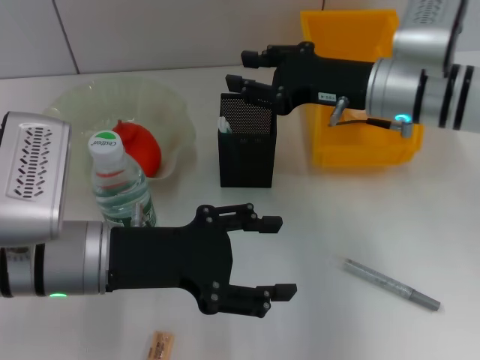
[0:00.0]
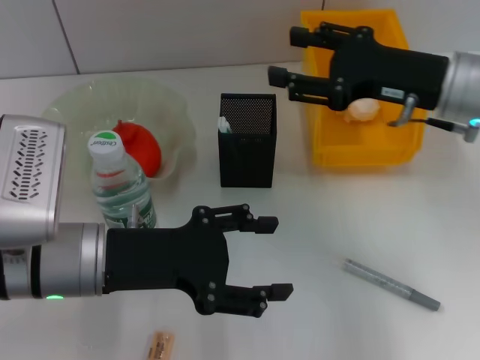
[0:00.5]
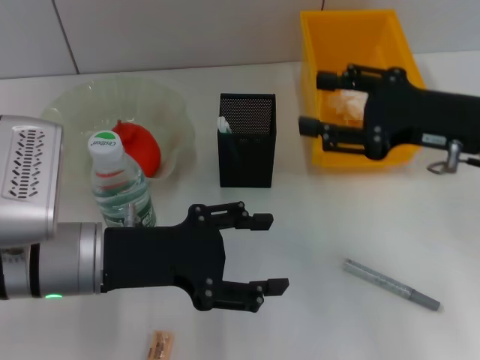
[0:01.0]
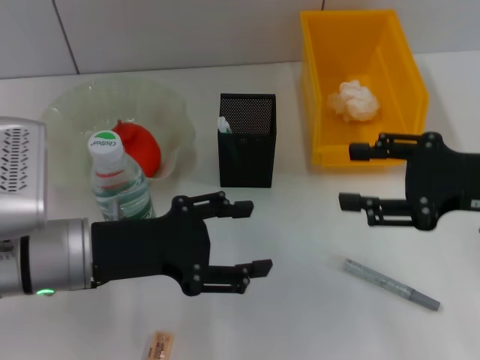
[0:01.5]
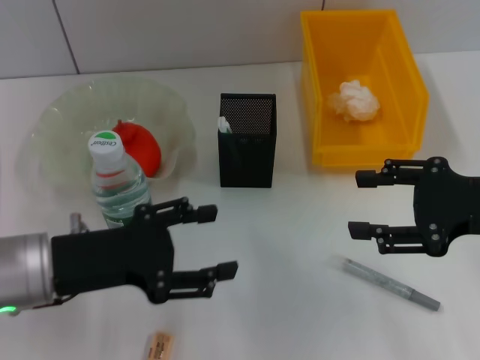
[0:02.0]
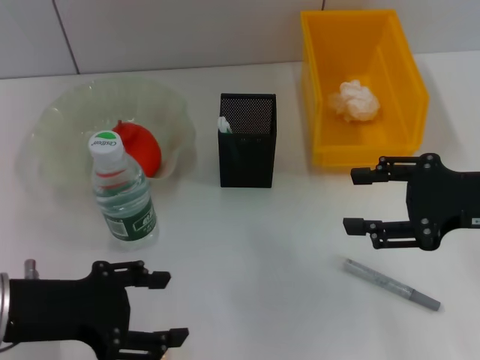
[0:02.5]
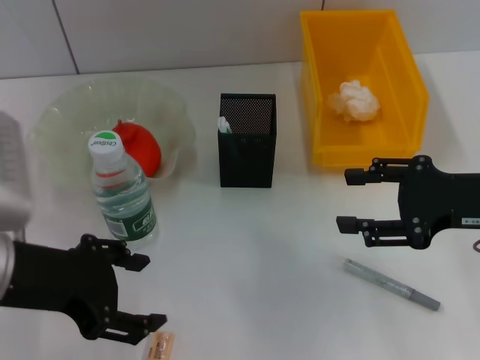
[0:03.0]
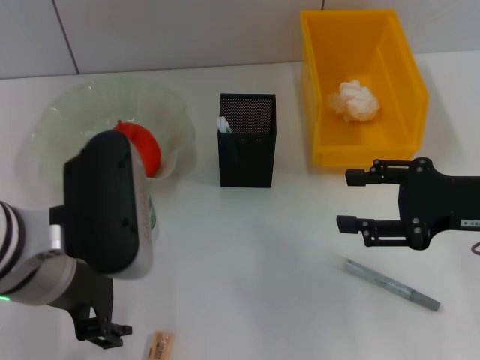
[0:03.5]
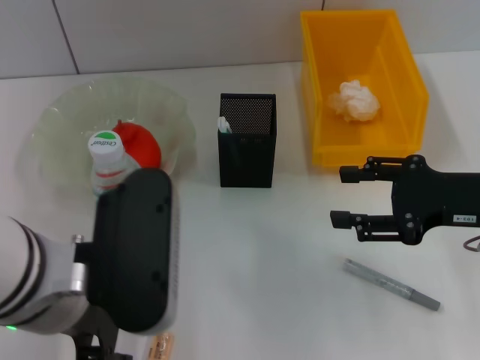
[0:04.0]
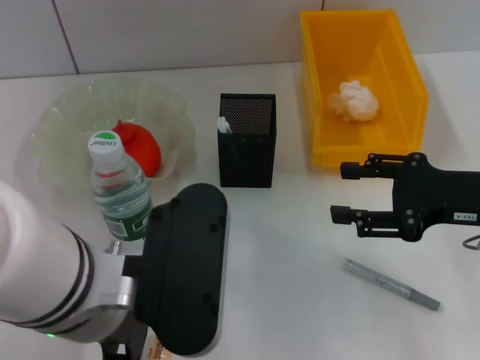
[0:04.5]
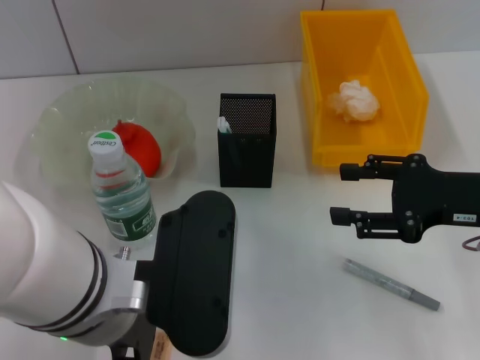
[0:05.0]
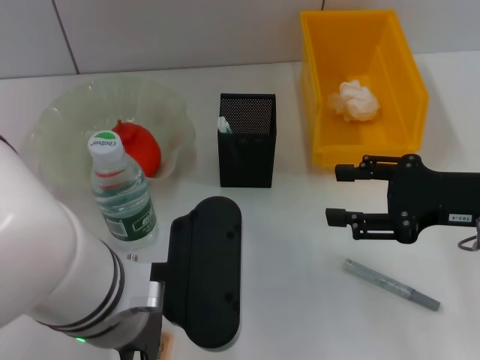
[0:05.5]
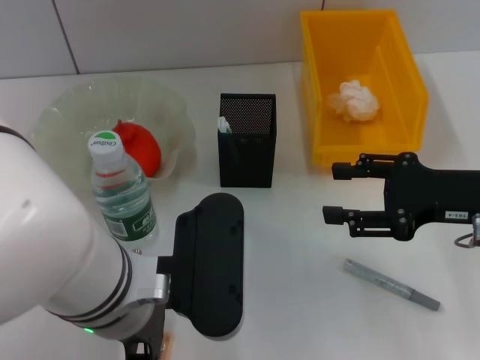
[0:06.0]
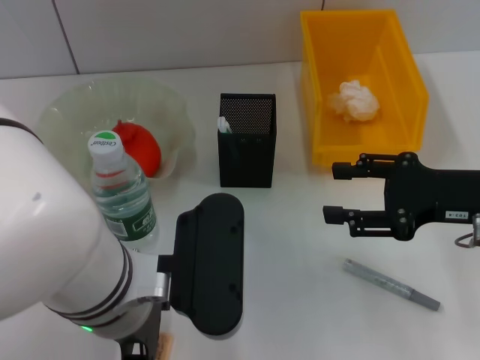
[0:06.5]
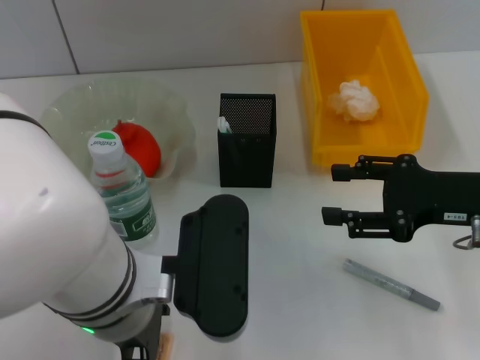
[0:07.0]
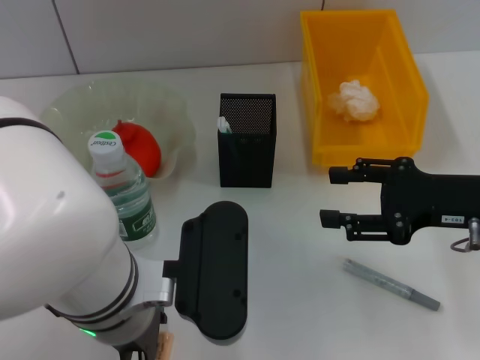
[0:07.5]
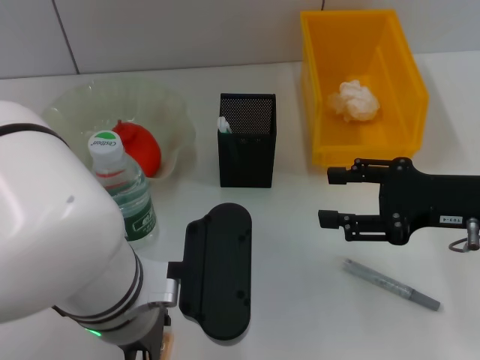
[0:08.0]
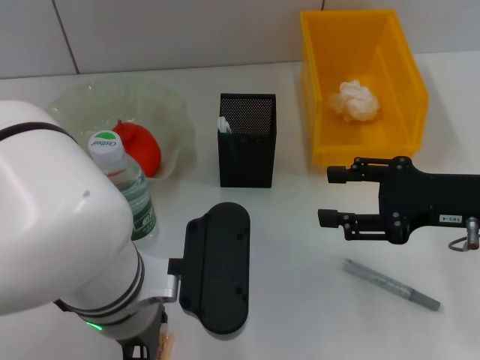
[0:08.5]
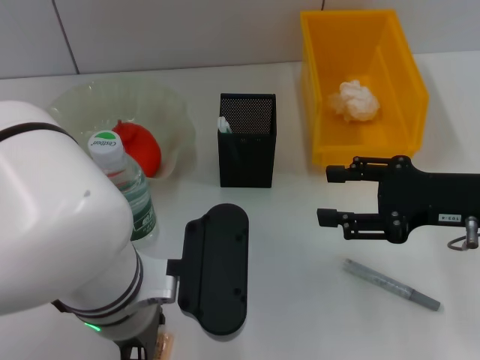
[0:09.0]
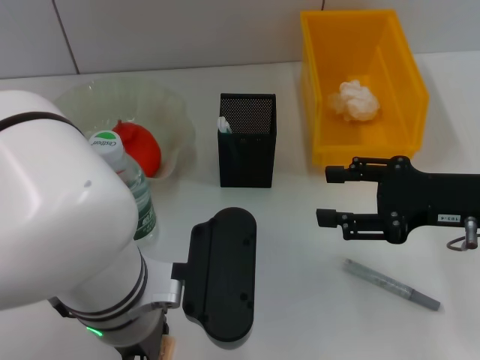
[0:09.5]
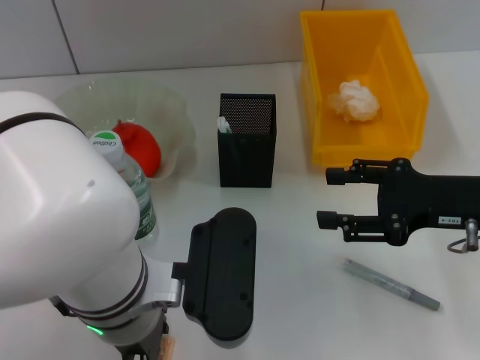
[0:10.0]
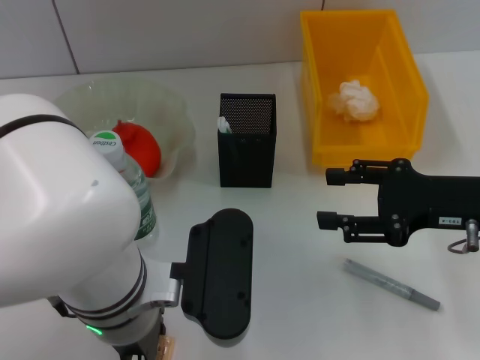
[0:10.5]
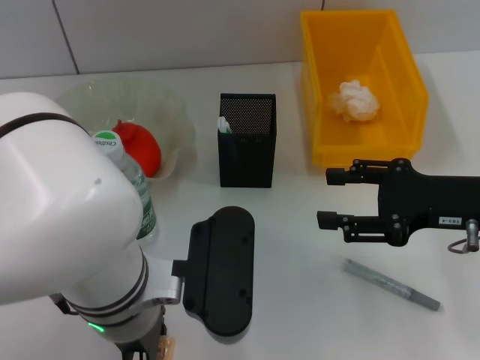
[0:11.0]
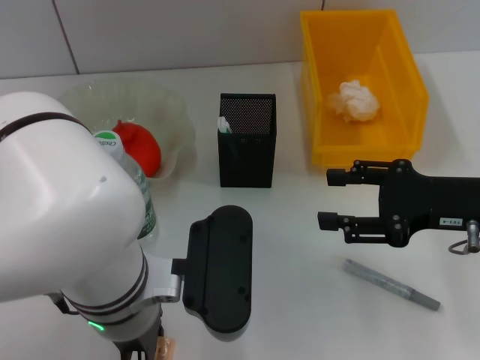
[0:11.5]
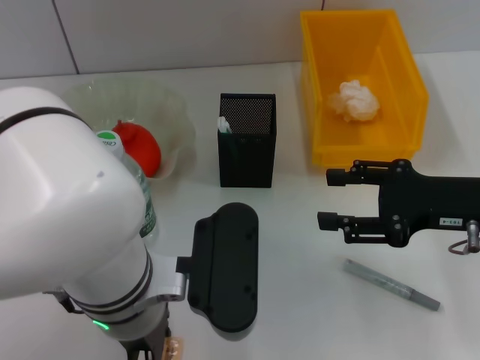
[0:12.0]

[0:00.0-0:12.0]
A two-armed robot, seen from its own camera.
Step, 0:00.0 to 0:09.5: Grab the eraser with the left hand.
0:00.0 to 0:02.0: The right gripper heads backward and to the right, covering about 15 cm, and opens.
0:02.0 to 0:04.0: The left gripper goes approximately 10 cm upward and to the right.
0:04.0 to 0:06.0: The left gripper shifts by approximately 5 cm.
0:06.0 to 0:08.0: The two grippers keep their place.
0:08.0 to 0:10.0: Both grippers stay about where they are.
0:10.0 to 0:12.0: The left gripper closes.

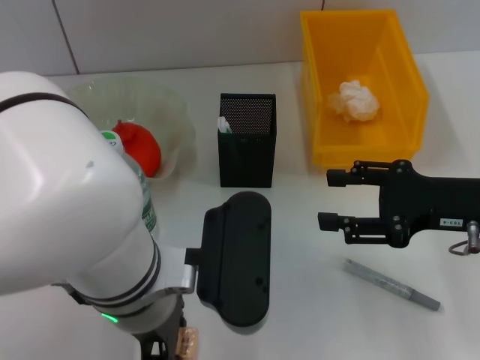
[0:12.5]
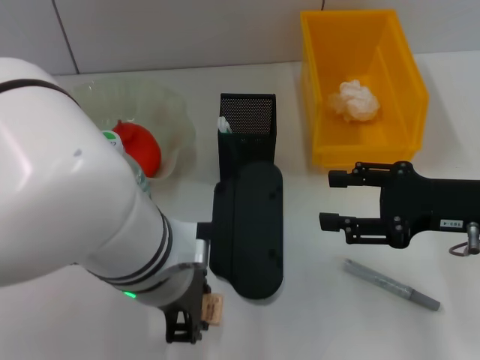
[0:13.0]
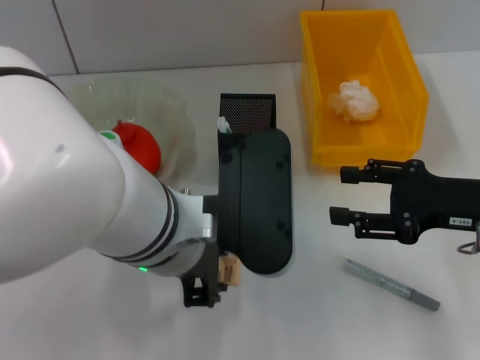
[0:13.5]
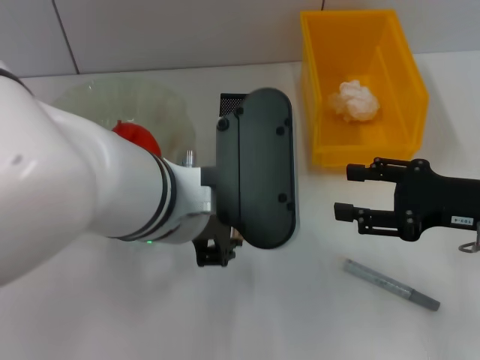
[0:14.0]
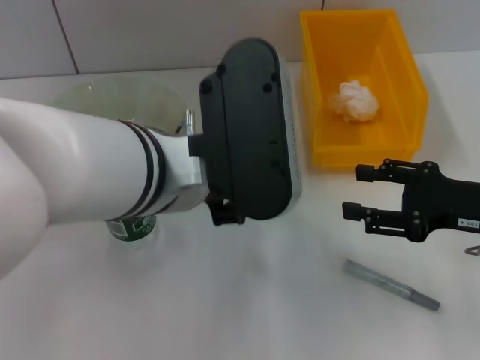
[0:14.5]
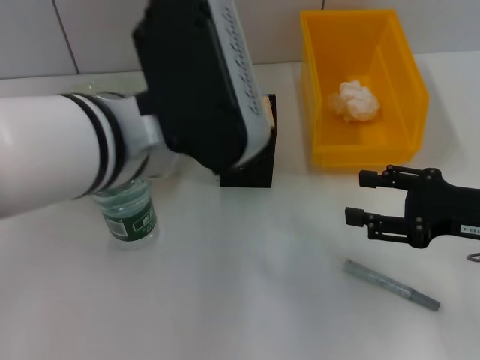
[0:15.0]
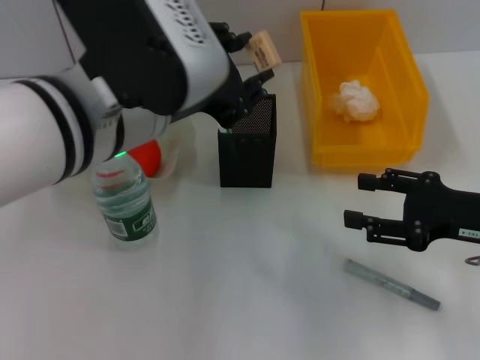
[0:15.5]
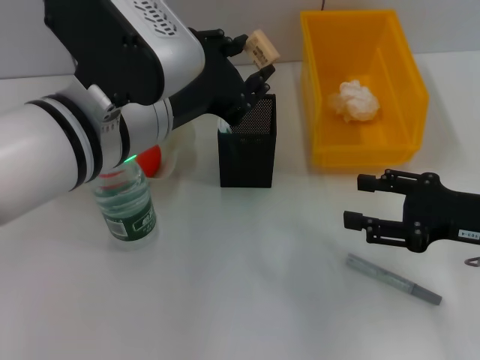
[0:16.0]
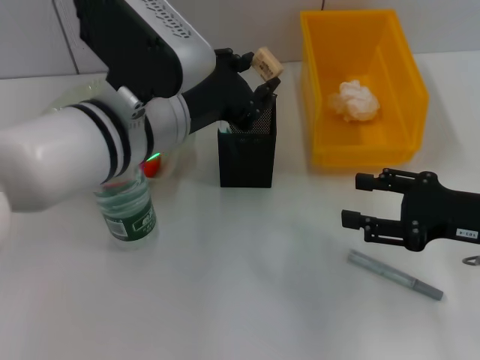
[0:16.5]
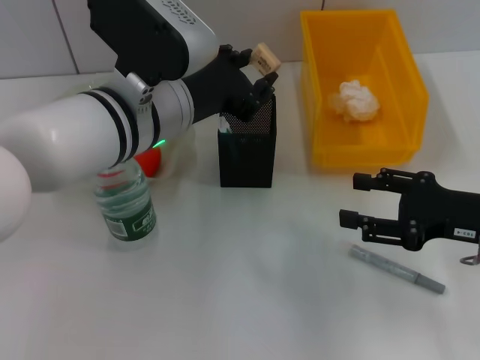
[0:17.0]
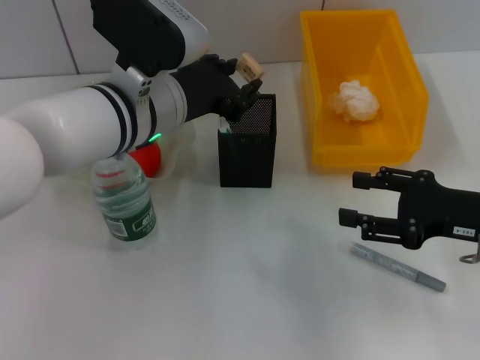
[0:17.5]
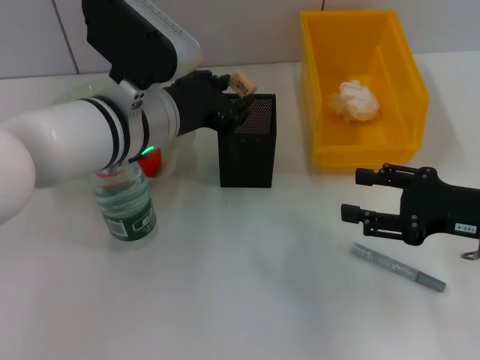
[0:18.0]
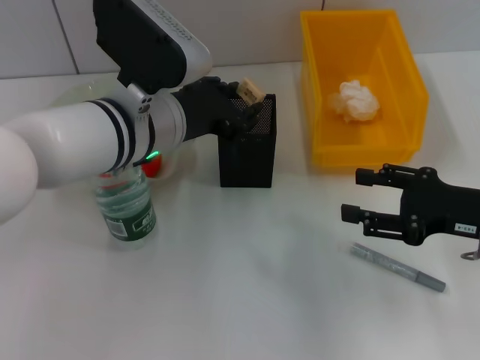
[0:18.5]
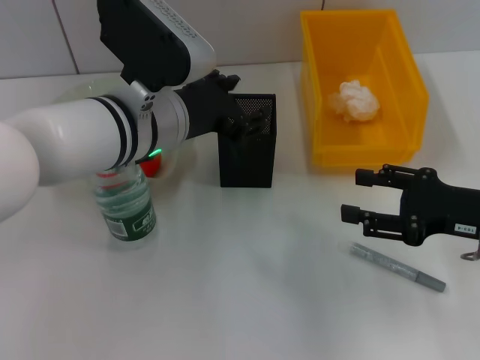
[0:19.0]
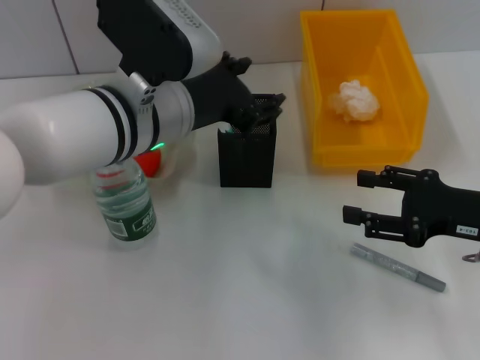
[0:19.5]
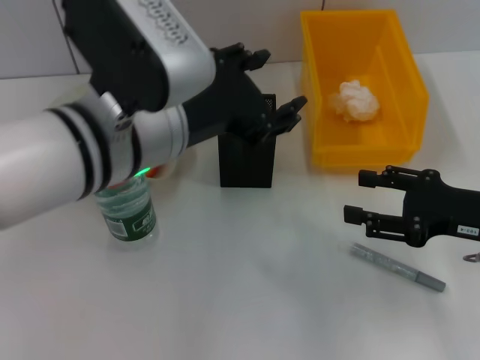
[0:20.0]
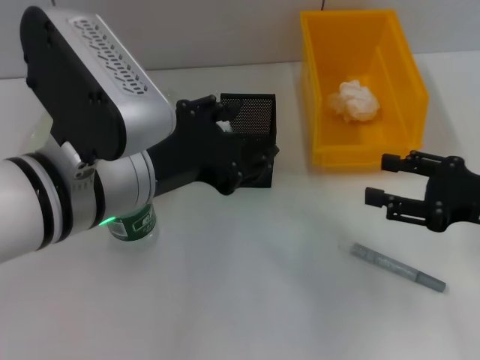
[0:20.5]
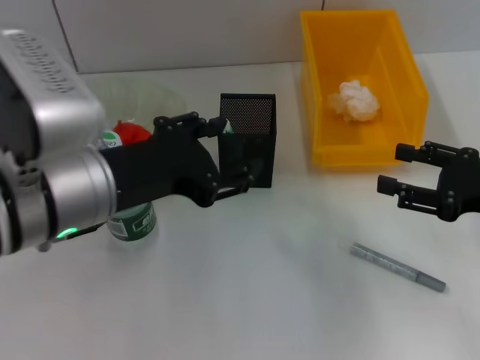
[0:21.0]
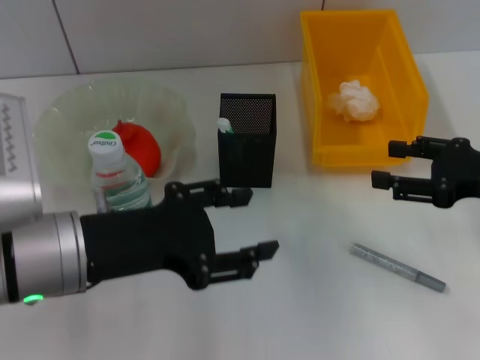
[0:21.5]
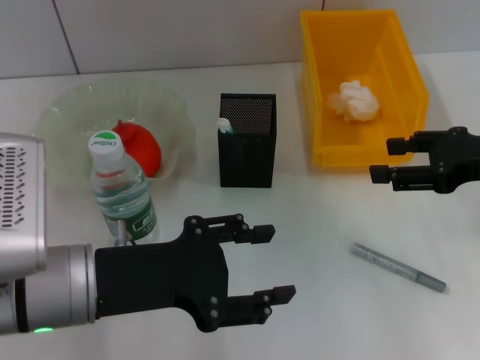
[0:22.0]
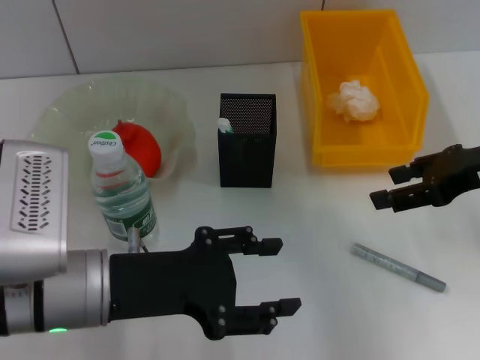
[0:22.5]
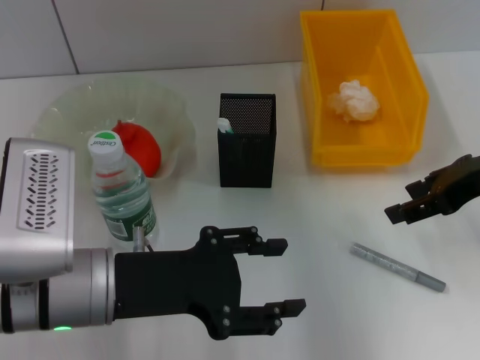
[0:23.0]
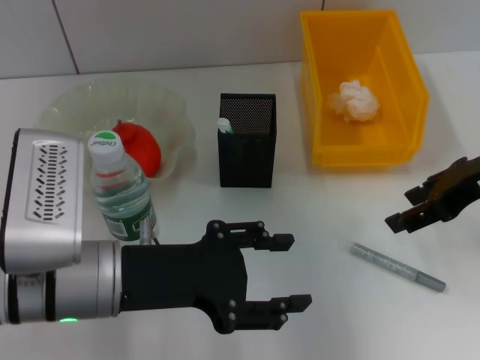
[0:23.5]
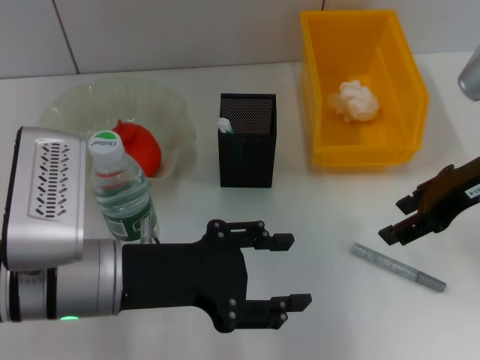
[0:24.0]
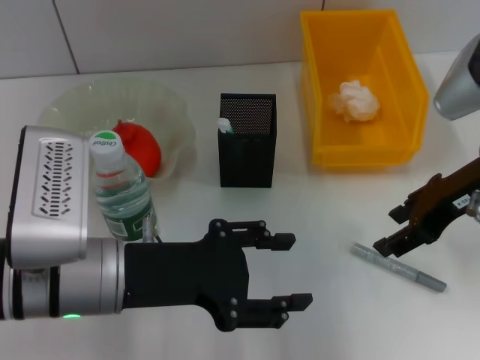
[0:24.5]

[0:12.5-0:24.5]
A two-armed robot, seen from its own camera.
Step, 0:12.5 to 0:18.5: Place the eraser into the pen holder with the left hand.
0:12.5 to 0:14.5: The left gripper moves upward, some 5 cm.
0:14.5 to 0:16.5: The left gripper is displaced forward by approximately 5 cm.
0:16.5 to 0:18.5: The grippers make only small movements.
0:18.5 to 0:20.5: The left gripper shifts some 10 cm backward, and opens its fingers.
0:20.5 to 0:22.5: The left gripper goes some 5 cm downward. Meanwhile the right gripper goes about 10 cm upward.

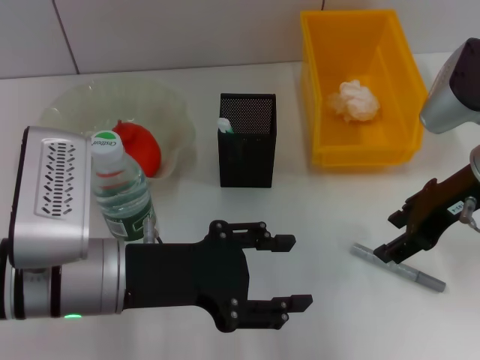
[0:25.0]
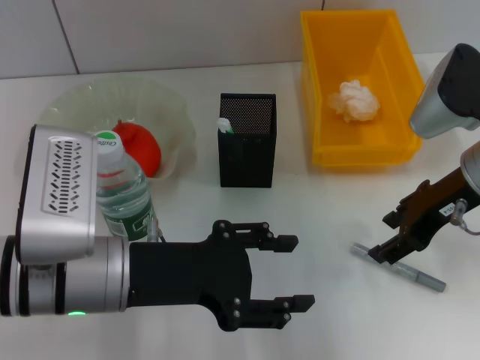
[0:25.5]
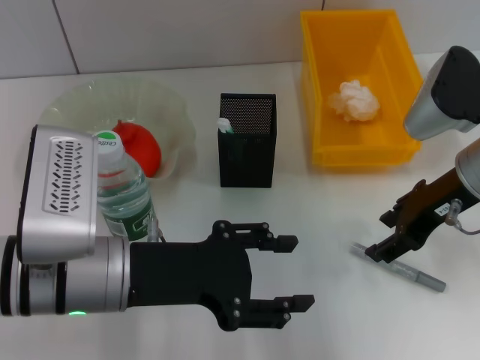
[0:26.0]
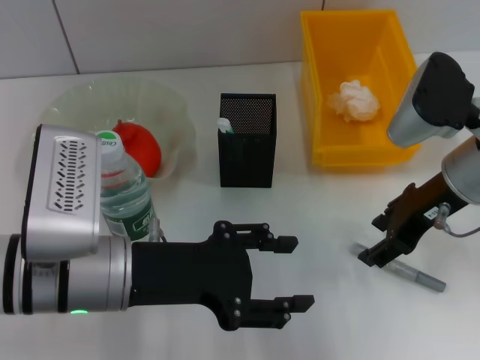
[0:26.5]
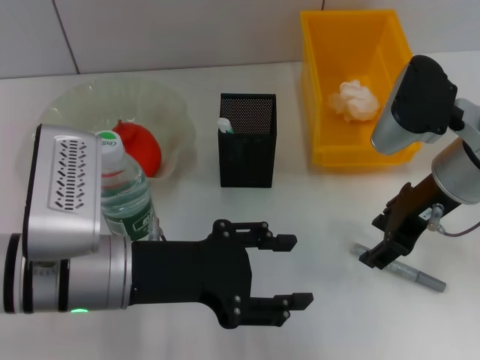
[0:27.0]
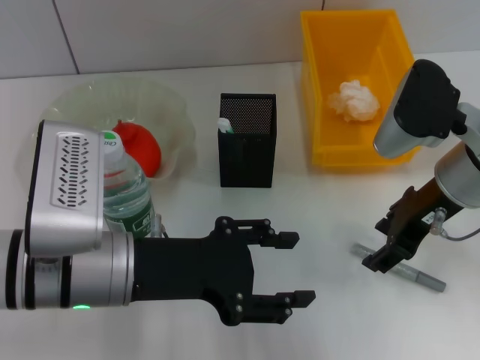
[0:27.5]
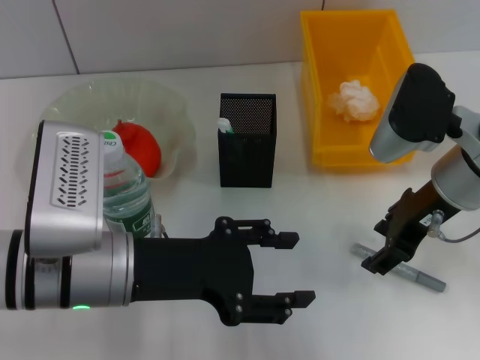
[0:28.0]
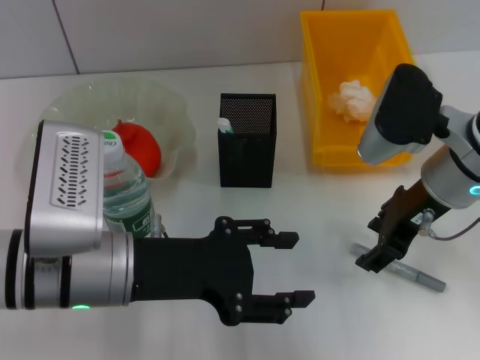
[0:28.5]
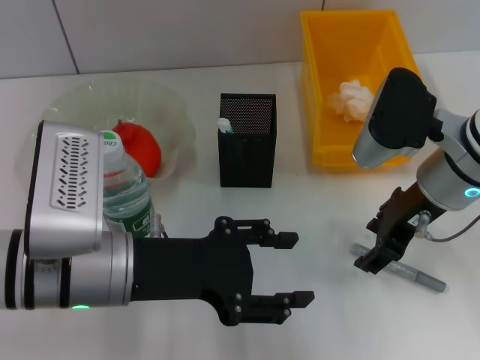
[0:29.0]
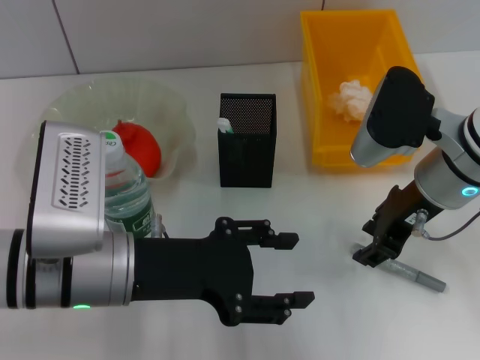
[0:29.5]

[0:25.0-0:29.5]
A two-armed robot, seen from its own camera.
0:25.0 to 0:29.5: The grippers move only a little.
